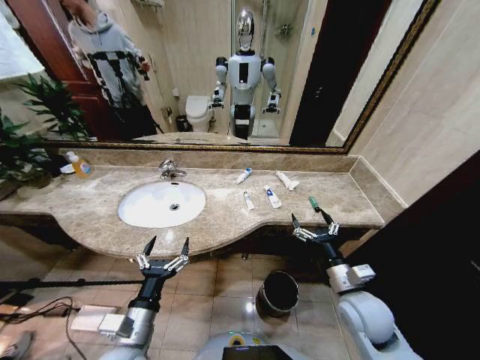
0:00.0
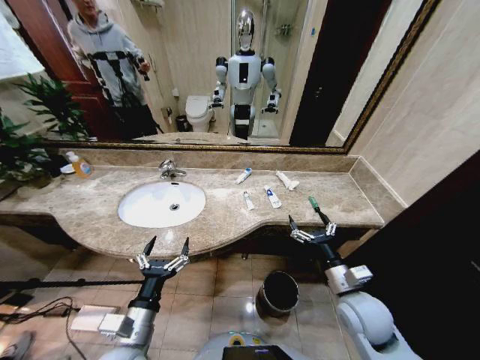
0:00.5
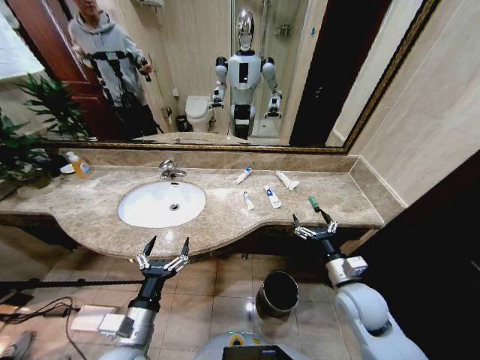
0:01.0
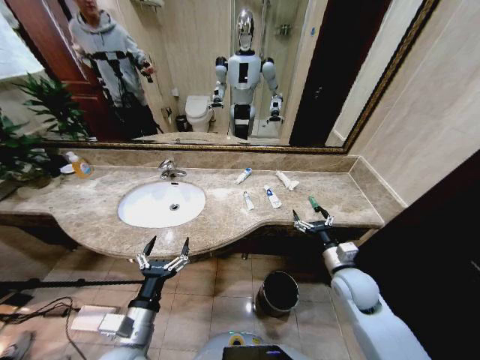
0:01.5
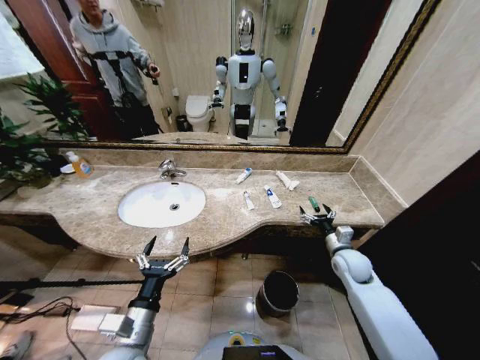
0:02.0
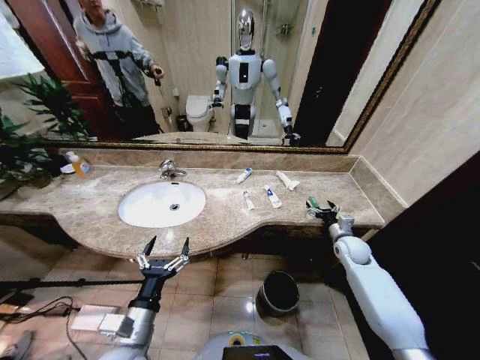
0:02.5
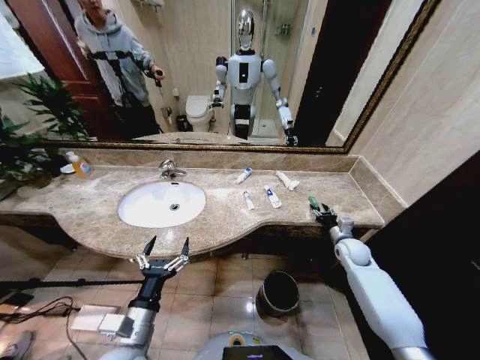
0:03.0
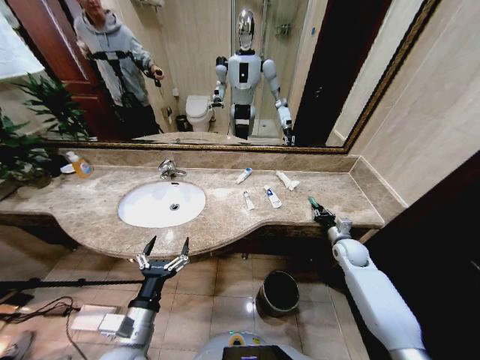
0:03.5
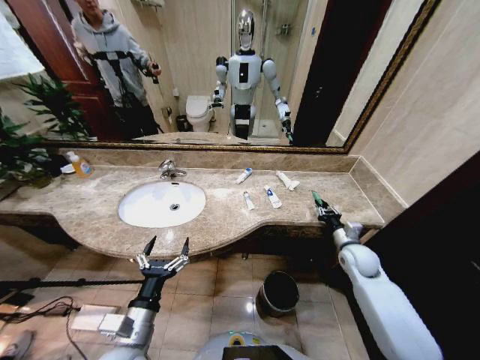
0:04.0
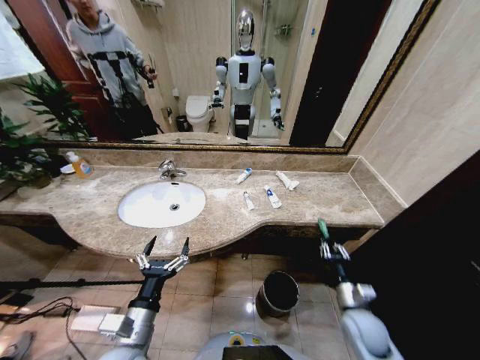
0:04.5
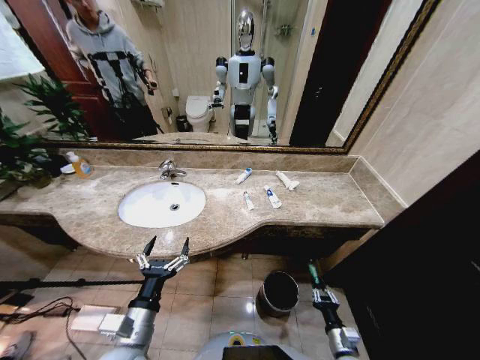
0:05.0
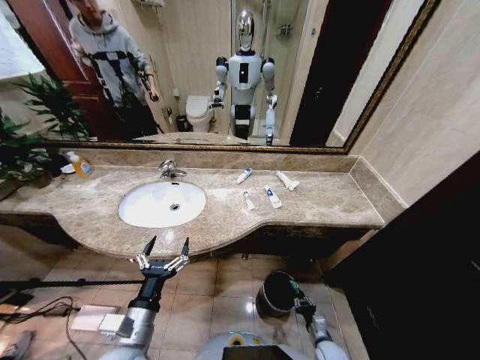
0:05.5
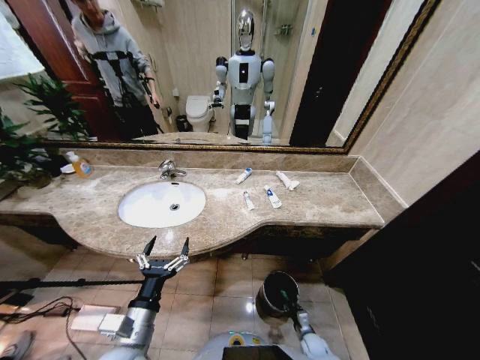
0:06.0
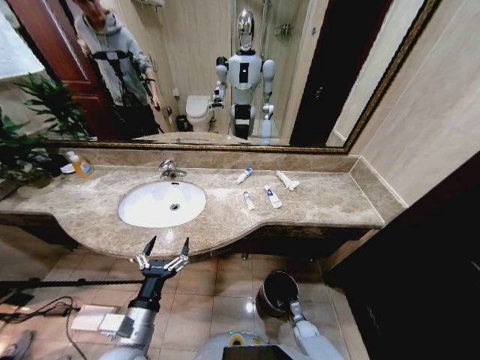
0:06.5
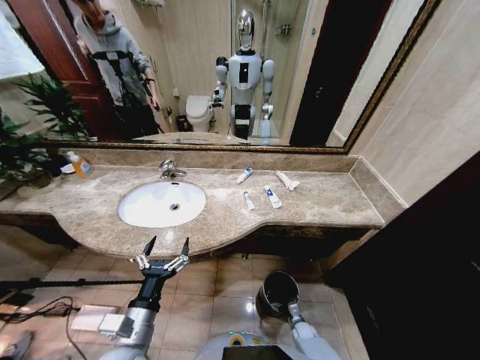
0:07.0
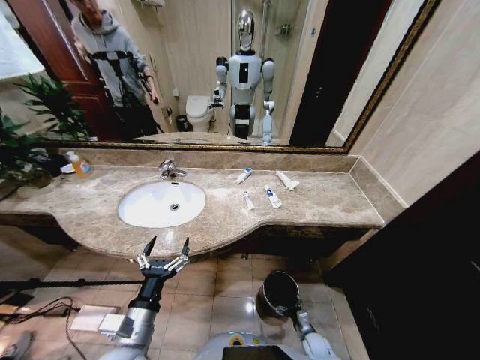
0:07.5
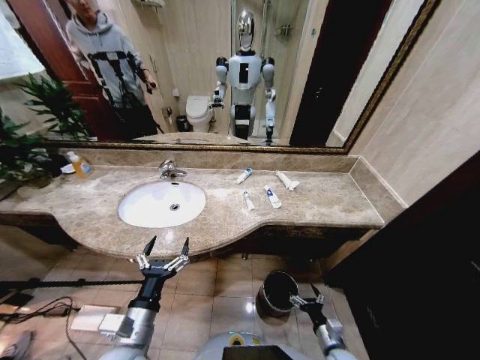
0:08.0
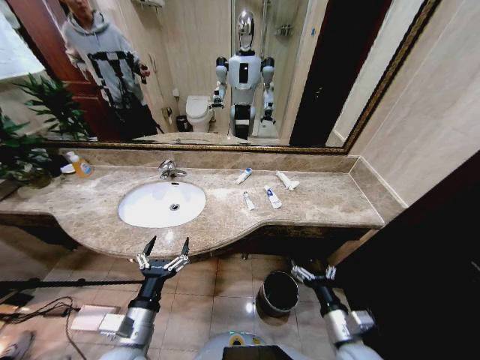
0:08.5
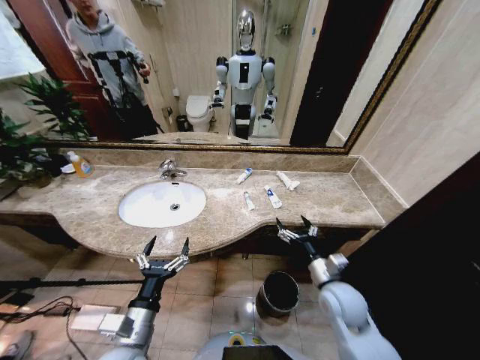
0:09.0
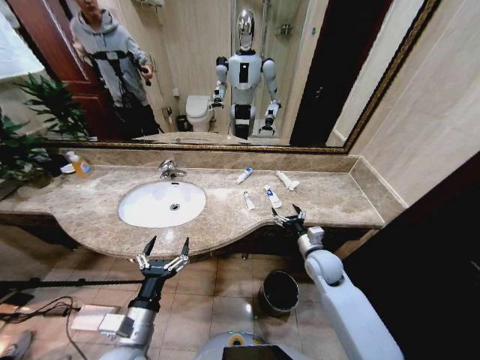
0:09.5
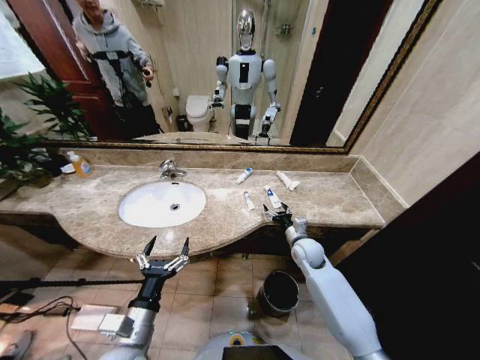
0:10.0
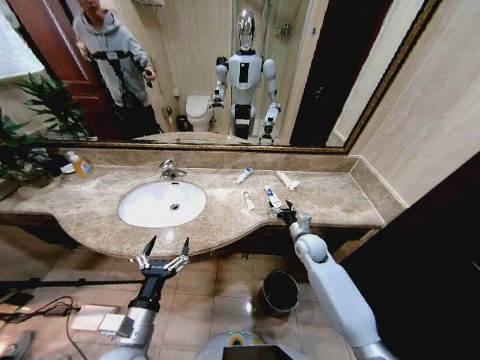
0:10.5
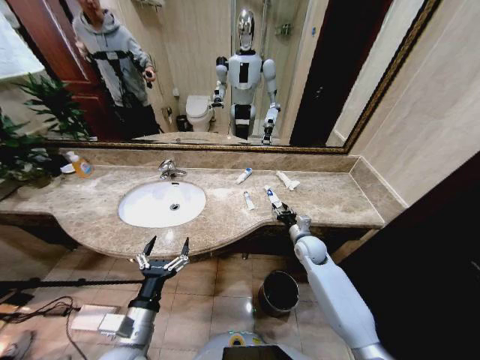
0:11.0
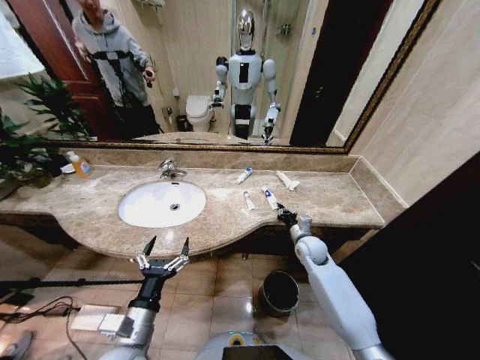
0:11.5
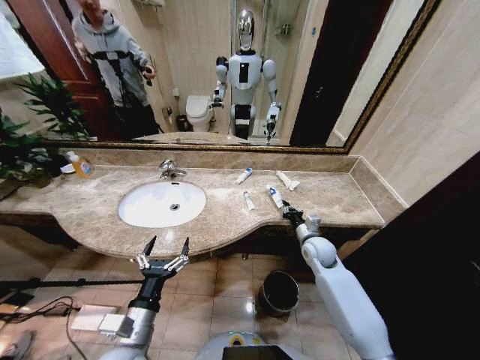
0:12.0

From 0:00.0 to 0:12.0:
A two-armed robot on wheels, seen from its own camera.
Task of the whole recording: Pick up the trash from the sink and place it in the trash bin.
From 0:02.0 to 0:04.0: The right gripper closes.
From 0:04.0 to 0:06.0: The right gripper heads downward and backward, covering roughly 40 cm.
From 0:06.0 to 0:08.0: The right gripper shifts approximately 15 cm upward, and opens.
From 0:08.0 to 0:10.0: The right gripper heads forward and upward, covering approximately 30 cm.
From 0:10.0 to 0:12.0: The right gripper closes.

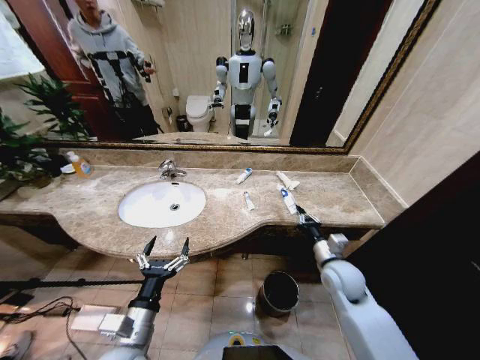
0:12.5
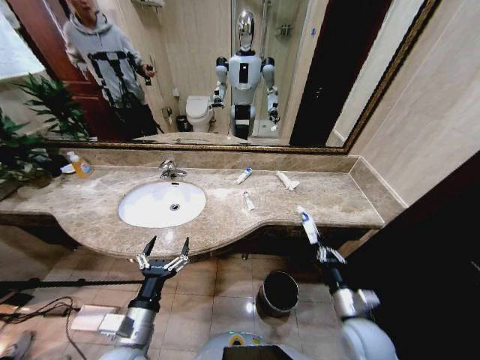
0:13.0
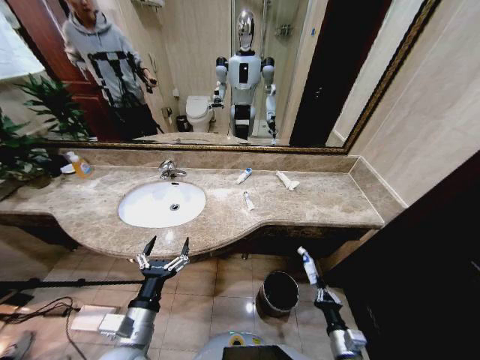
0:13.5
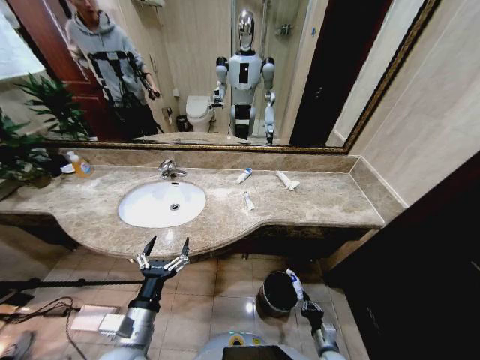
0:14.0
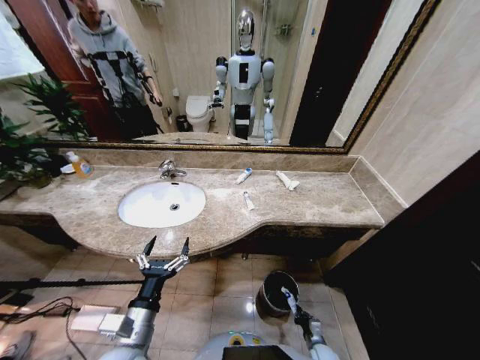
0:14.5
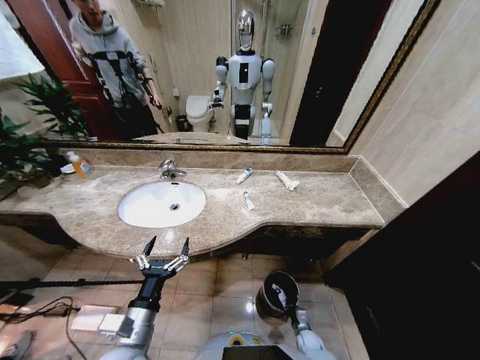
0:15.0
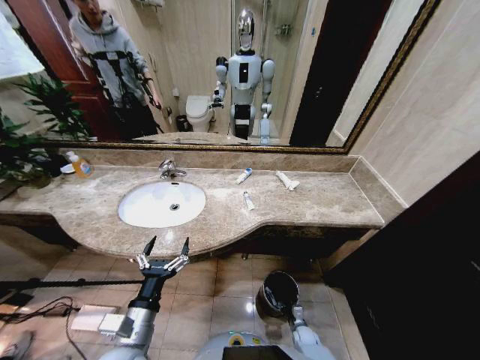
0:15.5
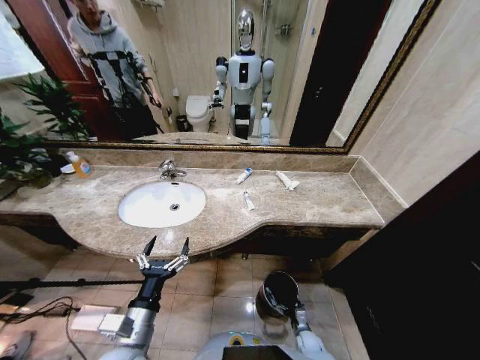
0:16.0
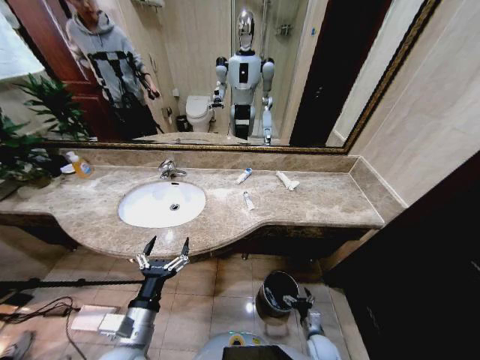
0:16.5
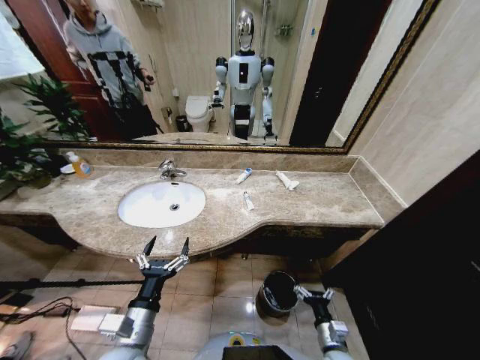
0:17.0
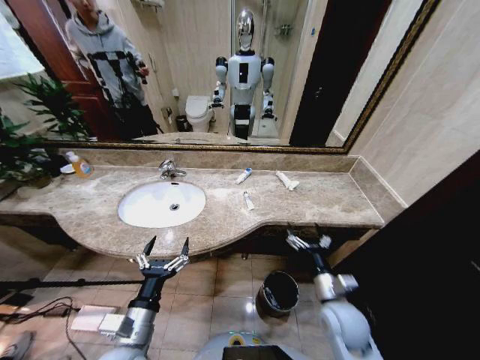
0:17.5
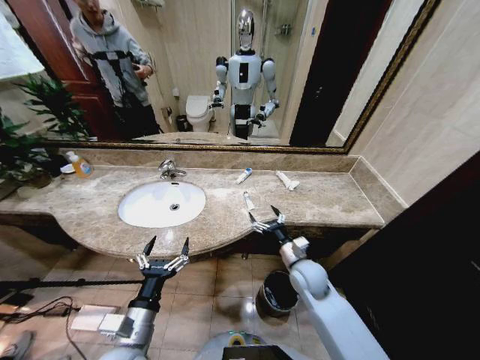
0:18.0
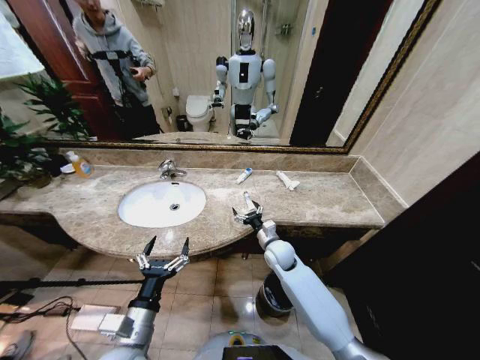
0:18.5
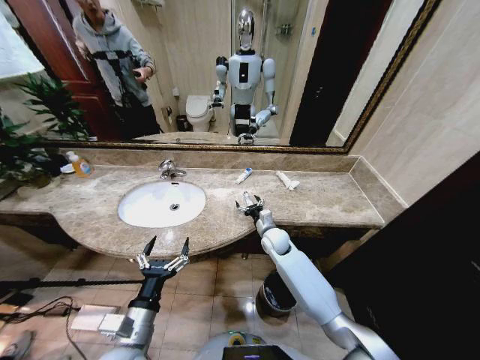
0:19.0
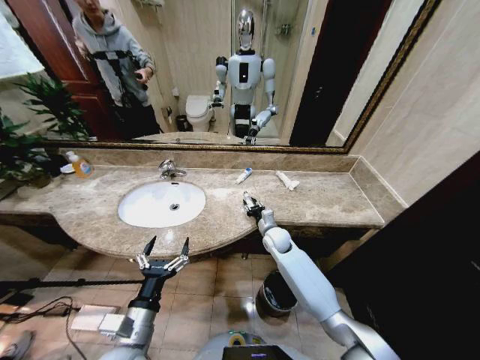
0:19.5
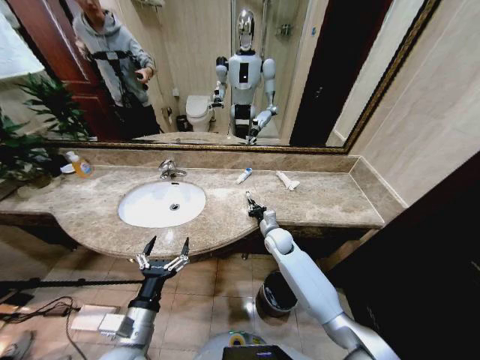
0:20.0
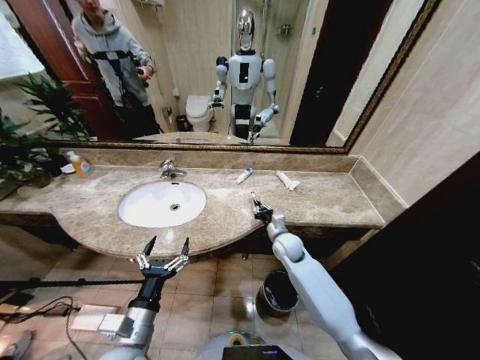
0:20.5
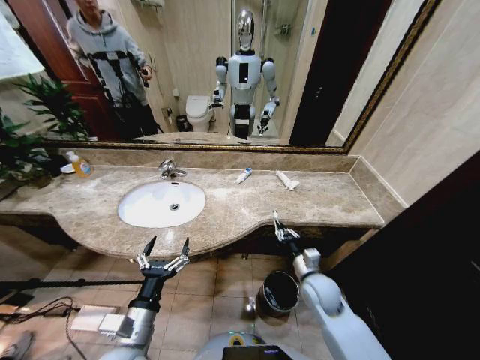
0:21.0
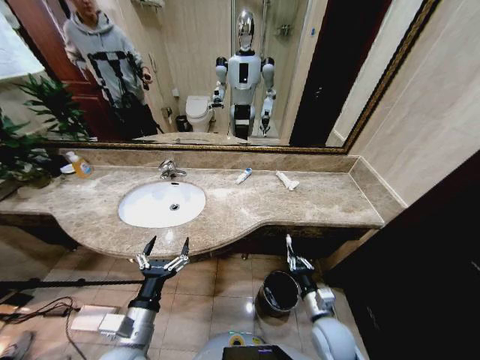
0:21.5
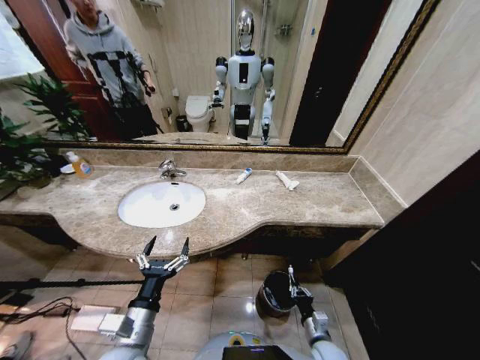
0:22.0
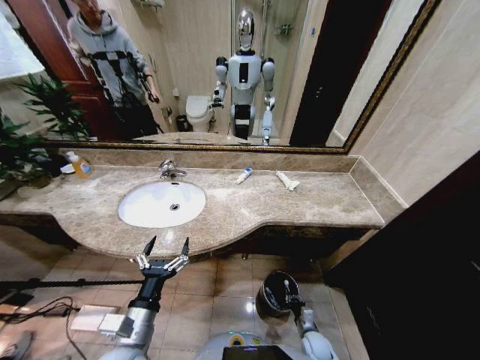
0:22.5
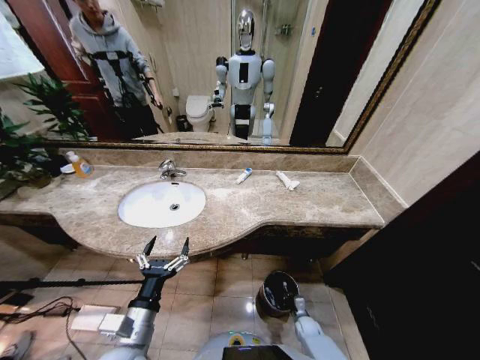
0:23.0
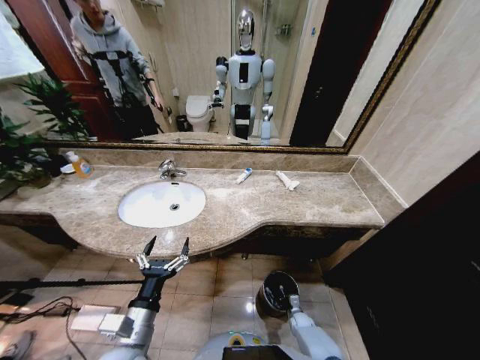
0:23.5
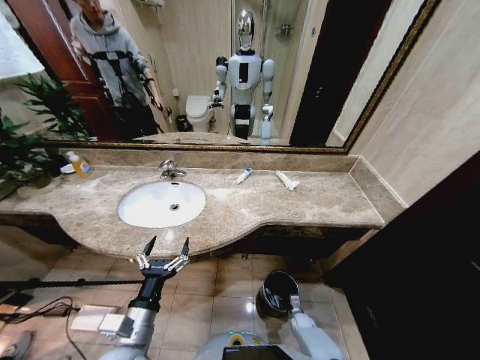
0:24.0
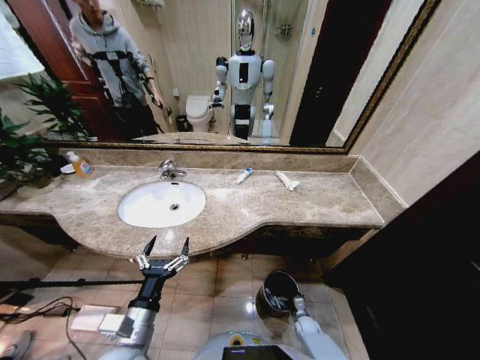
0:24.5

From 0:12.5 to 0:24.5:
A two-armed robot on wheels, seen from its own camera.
Task of the whole recording: Pick up the trash from the sink and place it in the trash bin.
From 0:12.5 to 0:14.5: The right gripper heads downward and backward, covering some 40 cm.
From 0:14.5 to 0:16.5: The right gripper heads upward, covering roughly 5 cm, and opens its fingers.
From 0:16.5 to 0:18.5: The right gripper travels upward, forward and to the left by approximately 35 cm.
From 0:18.5 to 0:20.5: The right gripper closes.
From 0:20.5 to 0:22.5: The right gripper goes some 35 cm downward and backward.
From 0:22.5 to 0:24.5: The right gripper shifts roughly 10 cm downward and forward, and opens up.

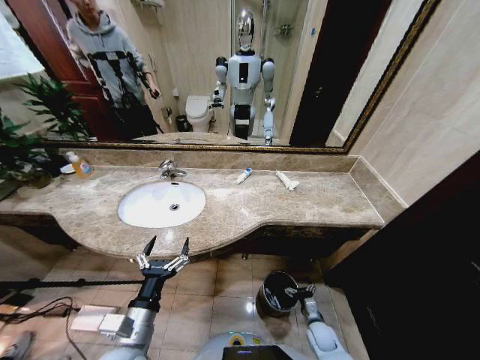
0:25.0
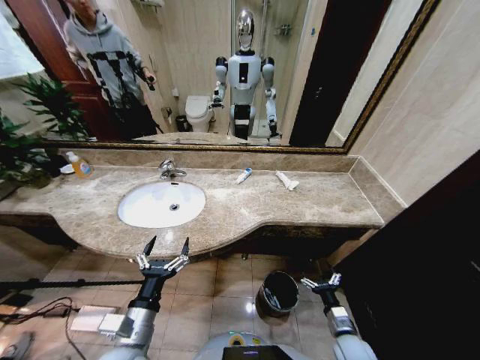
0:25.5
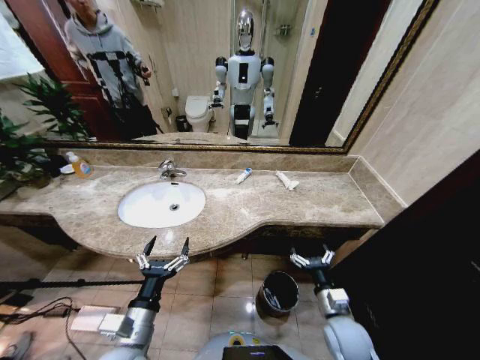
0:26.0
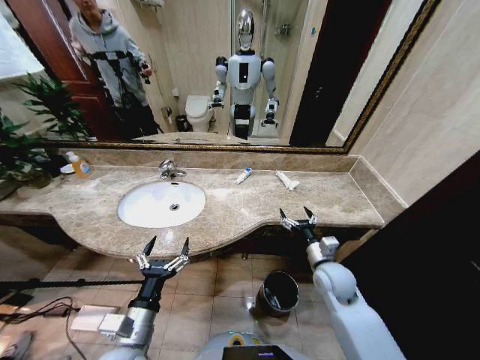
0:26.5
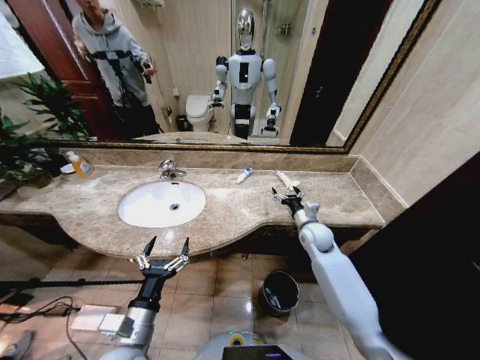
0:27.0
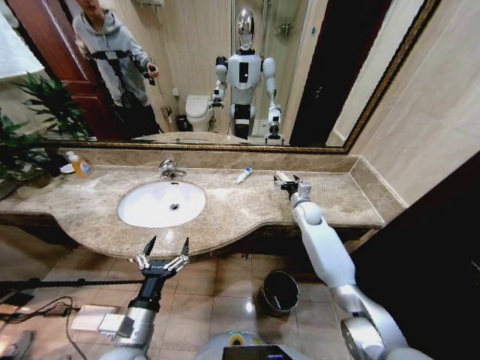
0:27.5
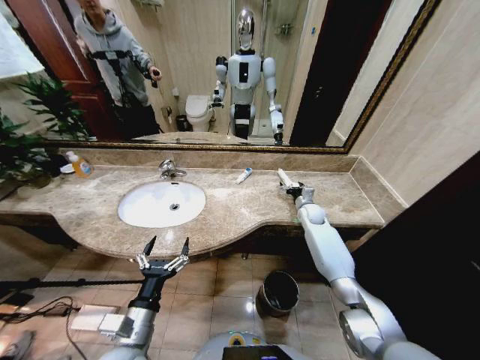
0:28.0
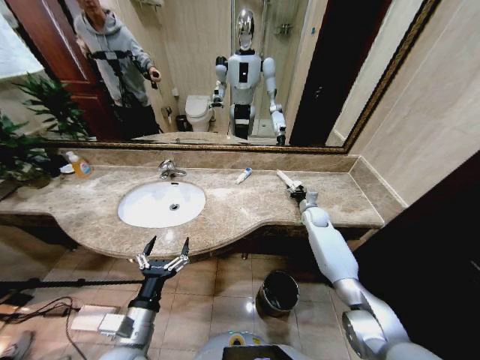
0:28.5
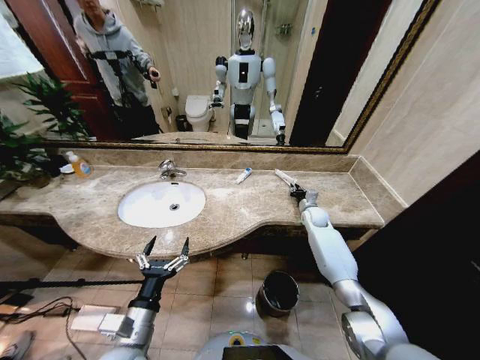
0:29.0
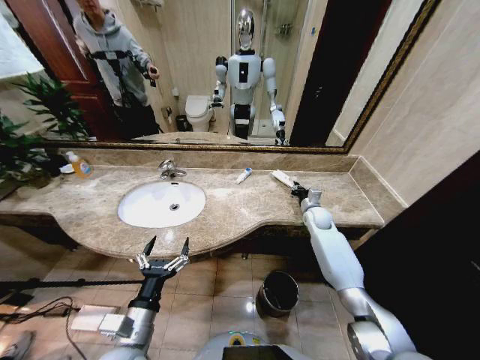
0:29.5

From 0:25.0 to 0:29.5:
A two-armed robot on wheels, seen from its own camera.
Task of the whole recording: Pick up the trash from the sink and place it in the trash bin.
From 0:25.0 to 0:27.0: The right gripper shifts about 35 cm upward and forward.
From 0:27.0 to 0:29.5: The right gripper heads forward and to the right, covering about 10 cm, and closes.
